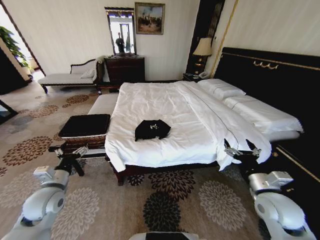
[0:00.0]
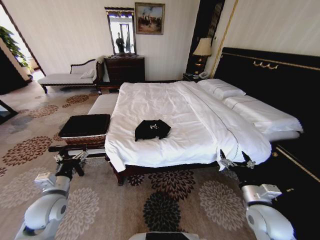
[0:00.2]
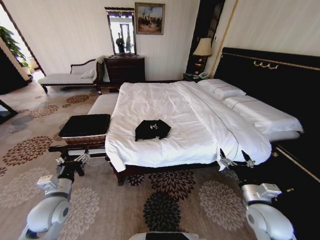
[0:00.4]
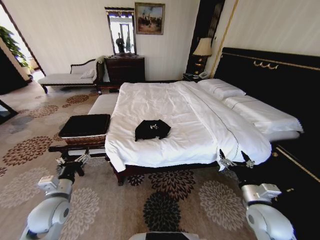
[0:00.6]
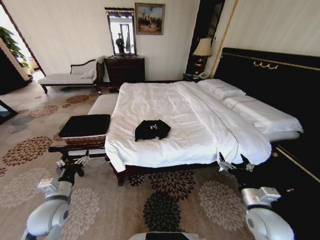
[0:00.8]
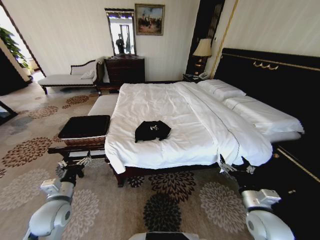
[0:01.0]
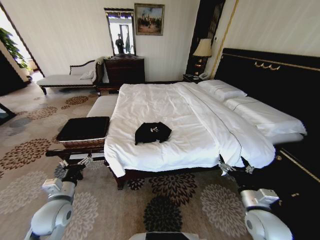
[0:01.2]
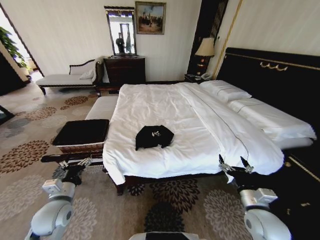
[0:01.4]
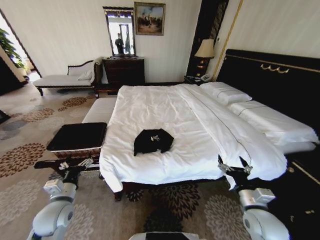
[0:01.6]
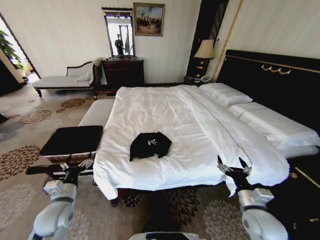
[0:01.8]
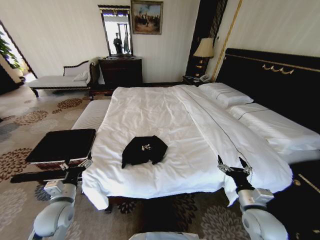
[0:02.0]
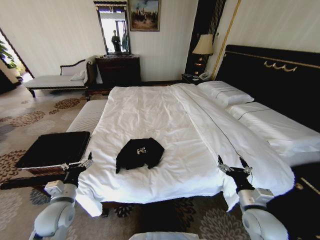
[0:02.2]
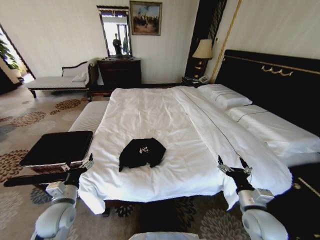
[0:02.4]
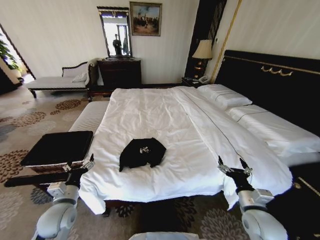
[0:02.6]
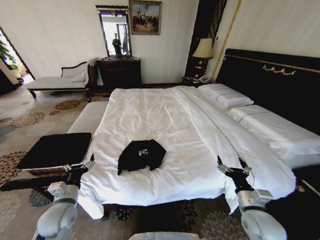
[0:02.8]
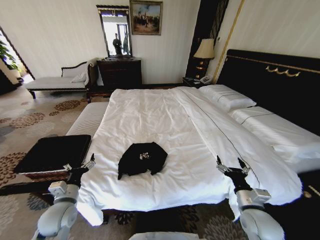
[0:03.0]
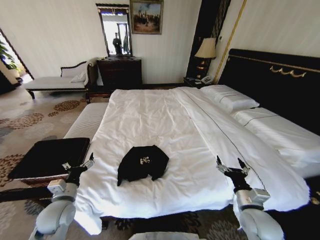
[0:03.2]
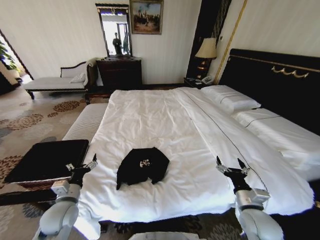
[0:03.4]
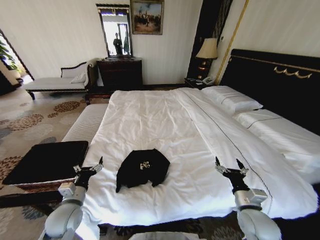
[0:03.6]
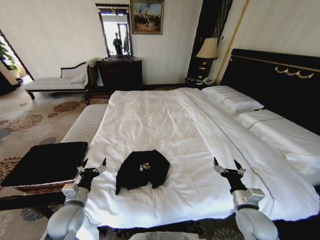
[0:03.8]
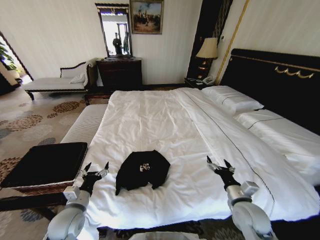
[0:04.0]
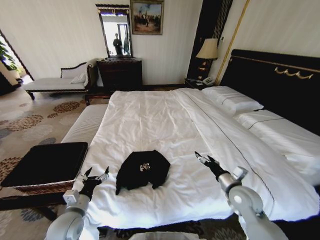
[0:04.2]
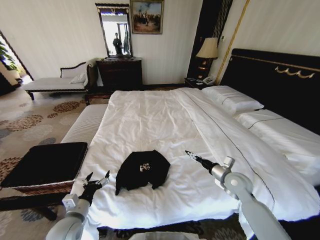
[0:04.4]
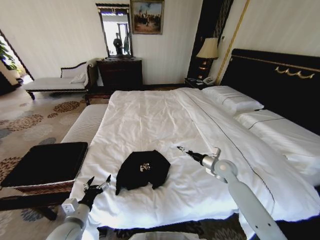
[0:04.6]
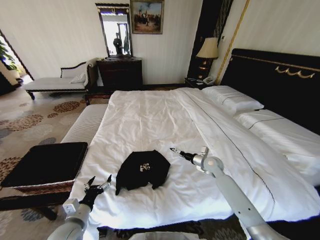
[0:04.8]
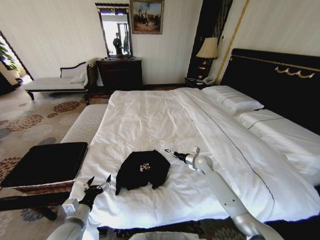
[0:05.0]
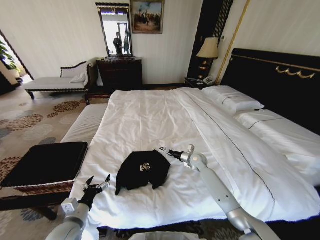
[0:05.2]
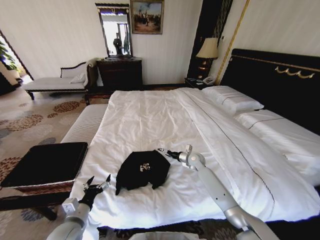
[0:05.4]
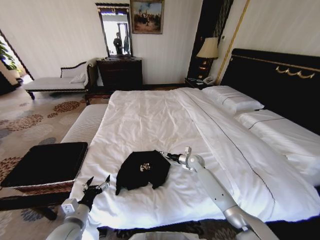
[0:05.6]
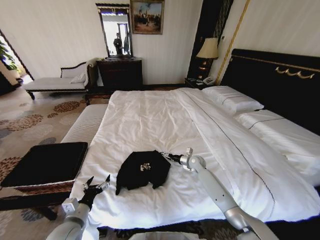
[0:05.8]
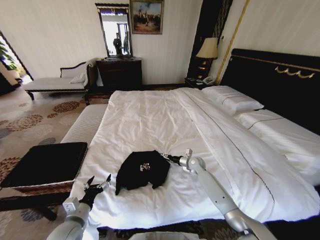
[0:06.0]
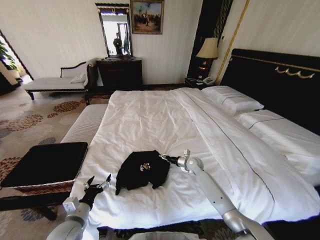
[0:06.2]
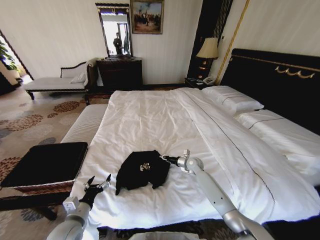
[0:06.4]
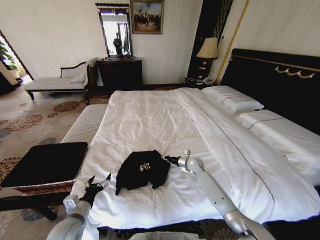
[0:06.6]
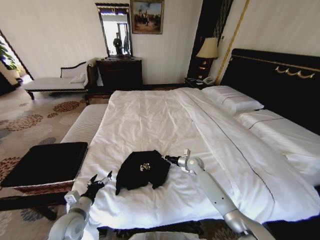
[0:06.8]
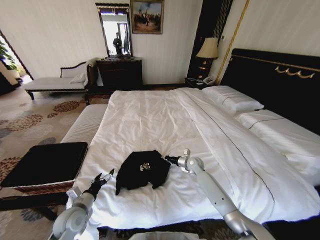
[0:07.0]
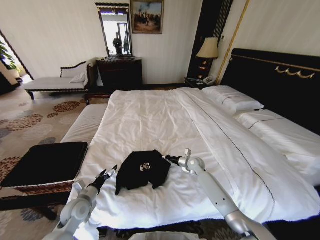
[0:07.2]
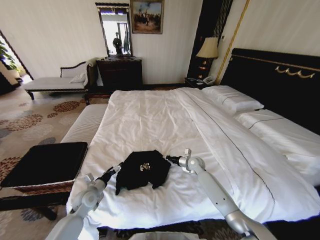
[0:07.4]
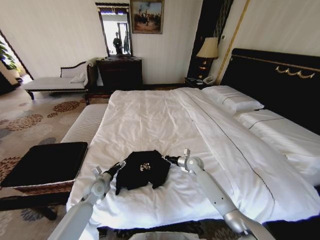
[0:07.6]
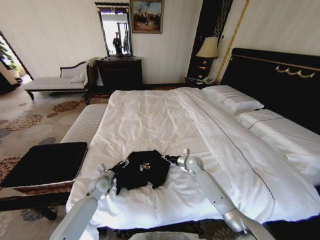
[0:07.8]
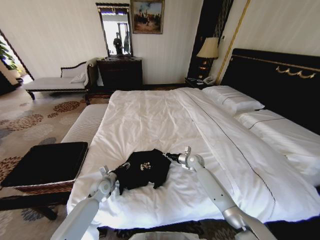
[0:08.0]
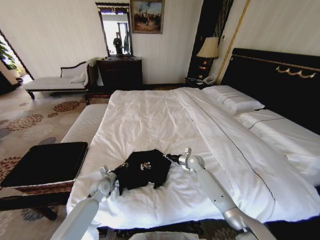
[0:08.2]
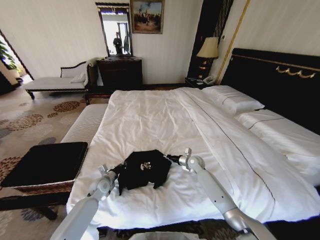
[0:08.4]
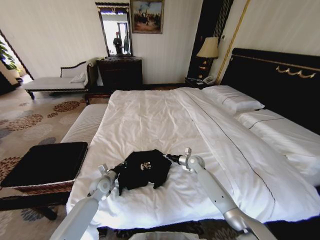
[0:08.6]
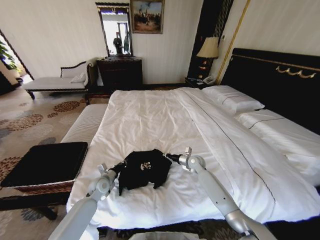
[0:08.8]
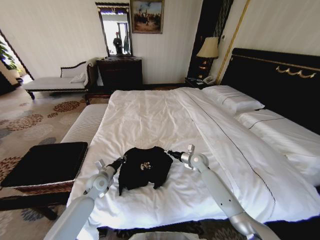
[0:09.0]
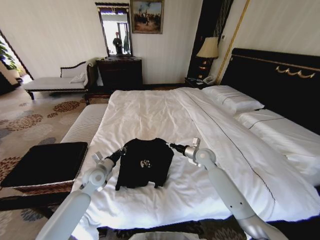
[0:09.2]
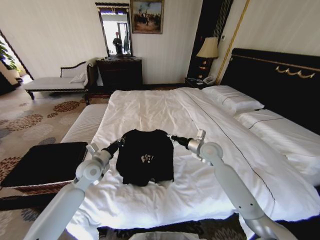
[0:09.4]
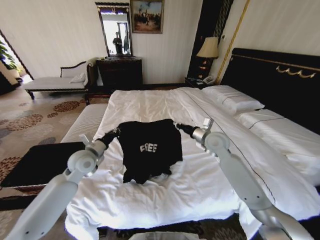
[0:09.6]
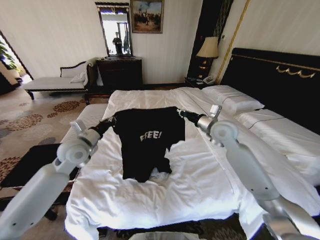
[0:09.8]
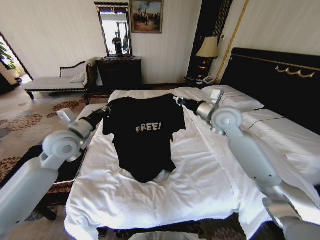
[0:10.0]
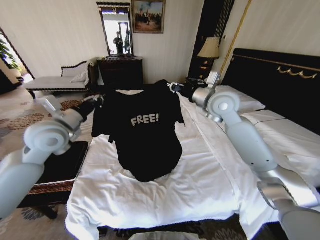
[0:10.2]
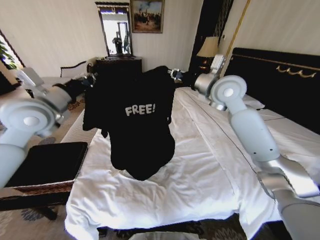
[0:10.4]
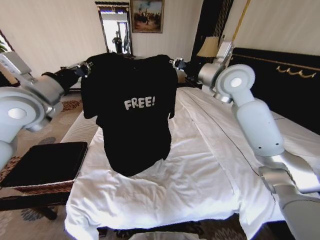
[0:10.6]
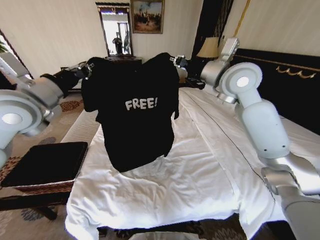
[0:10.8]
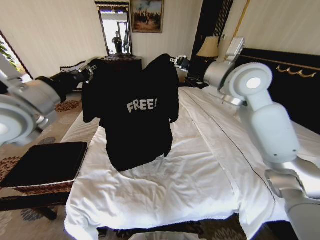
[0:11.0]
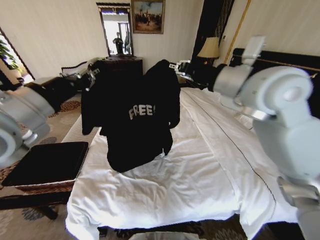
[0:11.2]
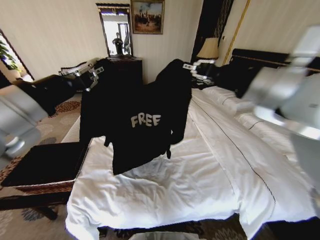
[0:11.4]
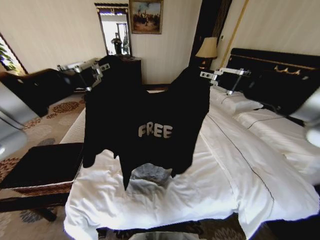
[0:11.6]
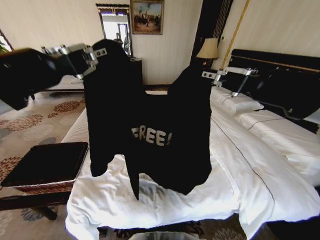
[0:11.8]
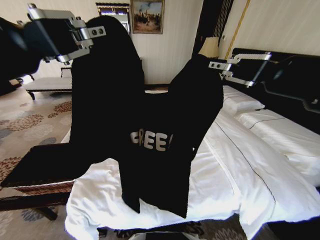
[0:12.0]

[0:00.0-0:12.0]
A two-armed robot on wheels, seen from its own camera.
Task of the whole recording: Fold the clothes on the bed and place them into the basket.
0:03.0 to 0:04.4: The left gripper shifts by roughly 5 cm; the right gripper travels forward by about 15 cm.
0:04.4 to 0:06.0: The right gripper goes about 20 cm forward, downward and to the left.
0:06.0 to 0:07.6: The right gripper closes its fingers. Meanwhile the left gripper moves forward, some 15 cm.
0:07.6 to 0:09.0: The left gripper closes its fingers.
0:09.0 to 0:10.4: The grippers both shift upward by some 40 cm.
0:10.4 to 0:12.0: The left gripper goes roughly 25 cm backward and upward; the right gripper moves backward, roughly 30 cm.

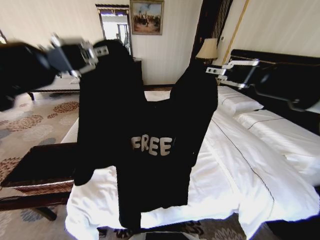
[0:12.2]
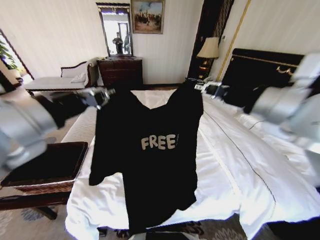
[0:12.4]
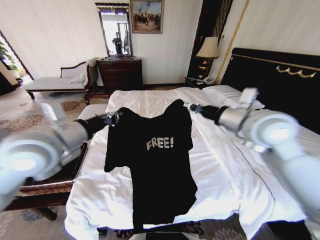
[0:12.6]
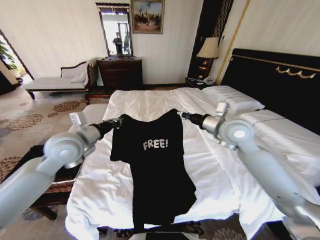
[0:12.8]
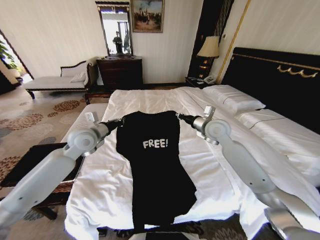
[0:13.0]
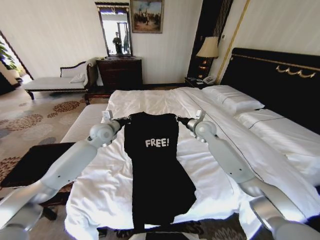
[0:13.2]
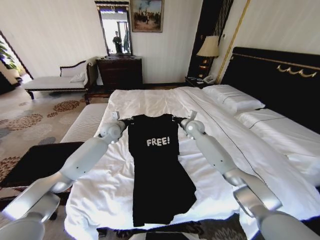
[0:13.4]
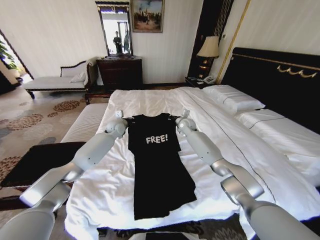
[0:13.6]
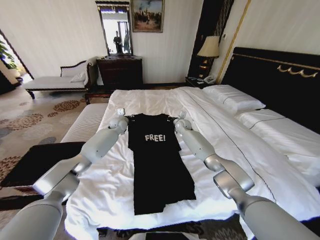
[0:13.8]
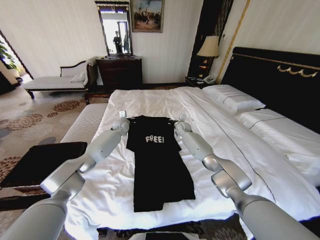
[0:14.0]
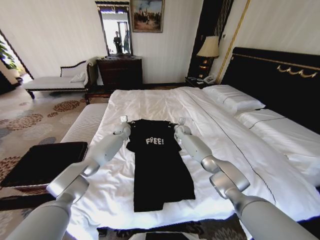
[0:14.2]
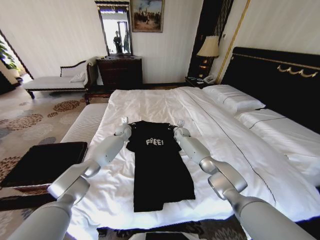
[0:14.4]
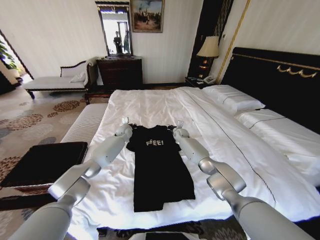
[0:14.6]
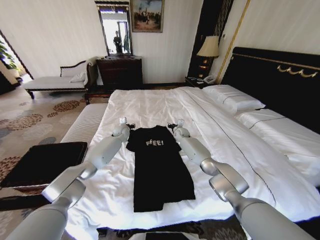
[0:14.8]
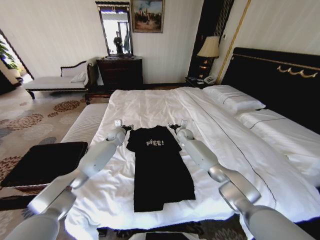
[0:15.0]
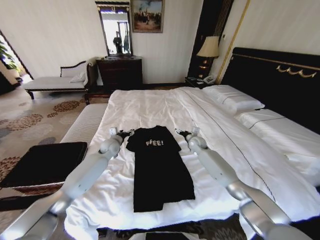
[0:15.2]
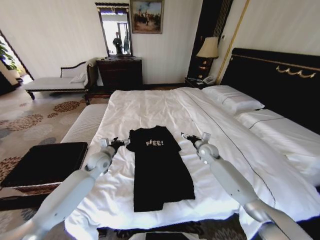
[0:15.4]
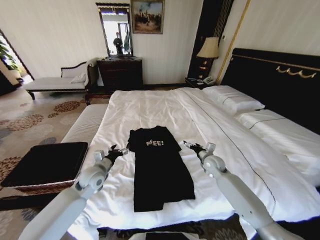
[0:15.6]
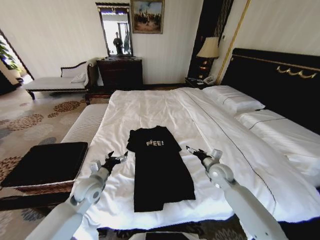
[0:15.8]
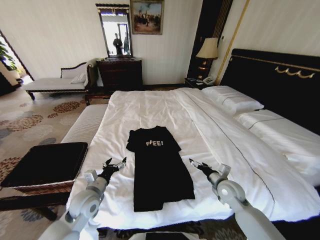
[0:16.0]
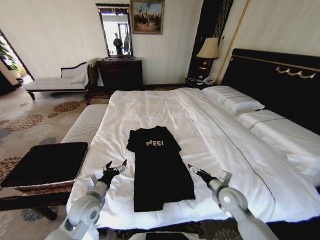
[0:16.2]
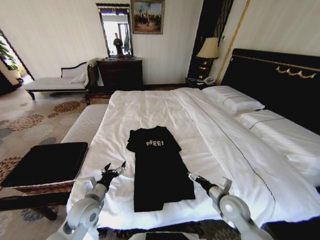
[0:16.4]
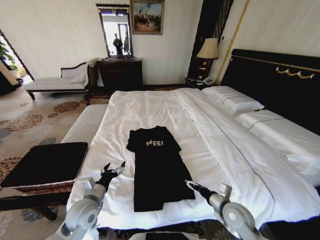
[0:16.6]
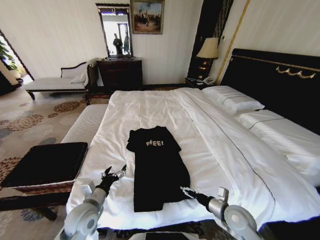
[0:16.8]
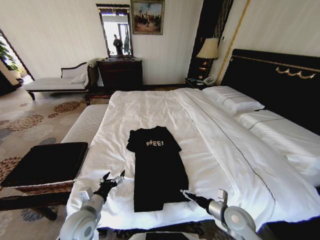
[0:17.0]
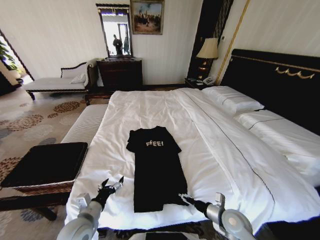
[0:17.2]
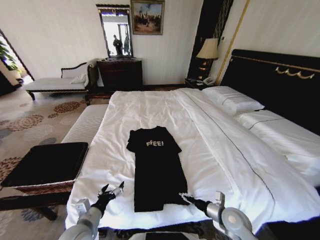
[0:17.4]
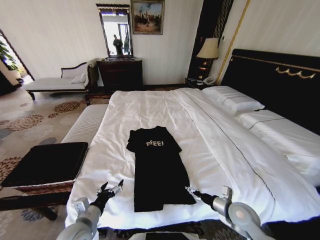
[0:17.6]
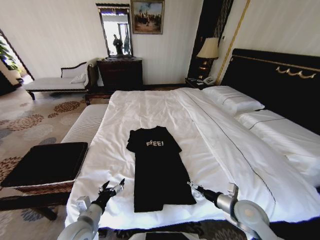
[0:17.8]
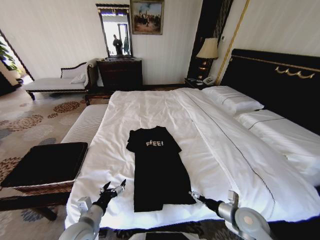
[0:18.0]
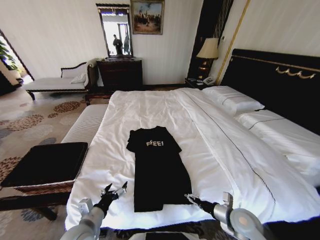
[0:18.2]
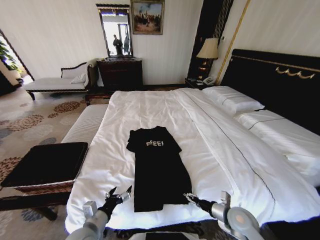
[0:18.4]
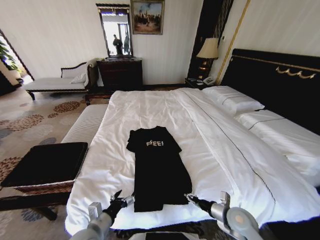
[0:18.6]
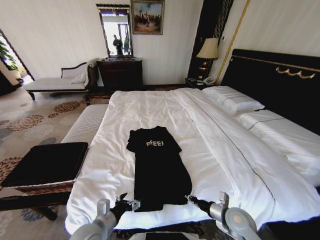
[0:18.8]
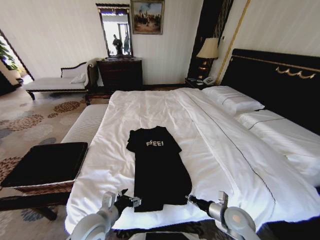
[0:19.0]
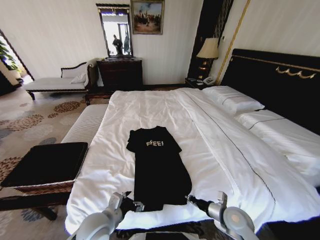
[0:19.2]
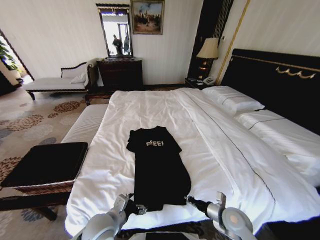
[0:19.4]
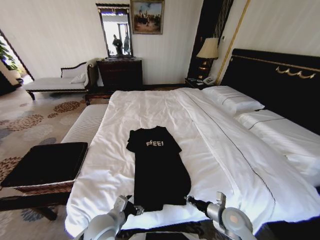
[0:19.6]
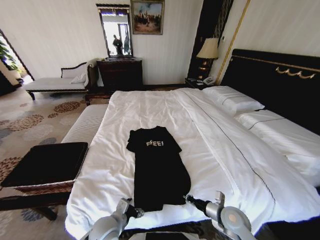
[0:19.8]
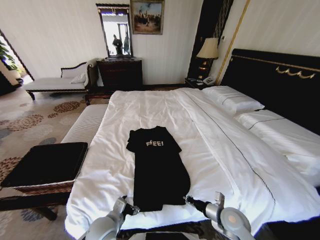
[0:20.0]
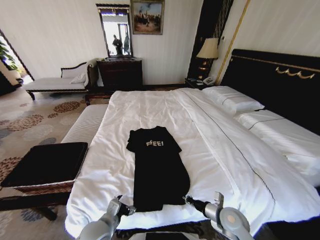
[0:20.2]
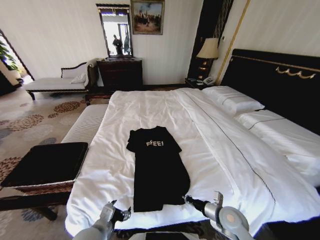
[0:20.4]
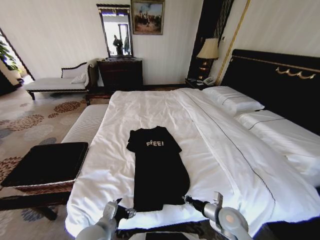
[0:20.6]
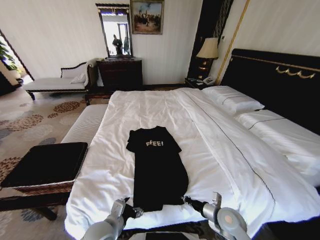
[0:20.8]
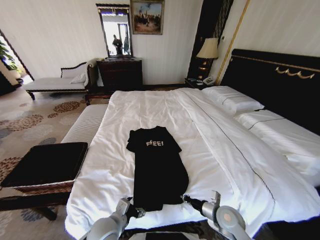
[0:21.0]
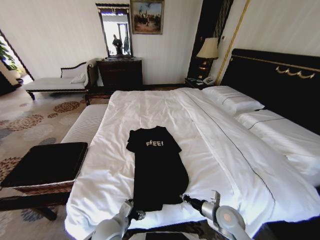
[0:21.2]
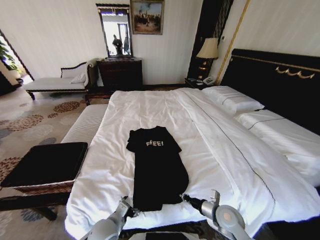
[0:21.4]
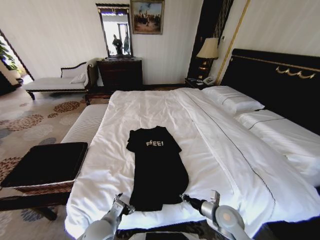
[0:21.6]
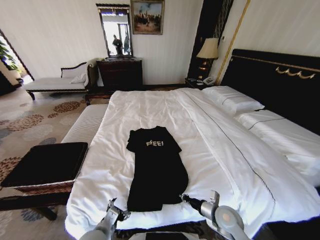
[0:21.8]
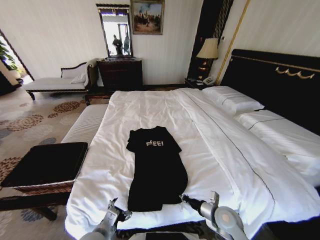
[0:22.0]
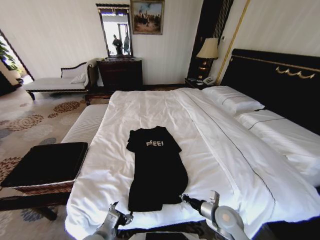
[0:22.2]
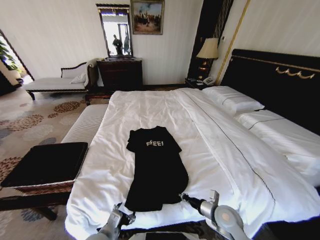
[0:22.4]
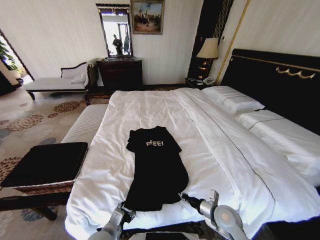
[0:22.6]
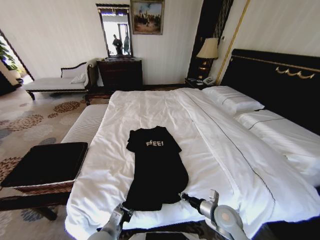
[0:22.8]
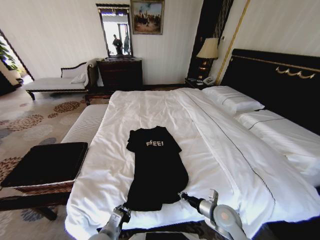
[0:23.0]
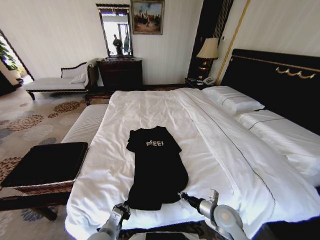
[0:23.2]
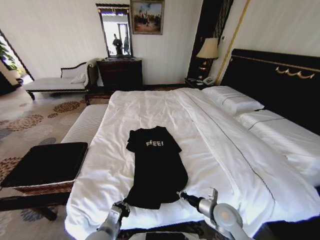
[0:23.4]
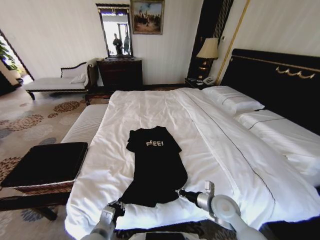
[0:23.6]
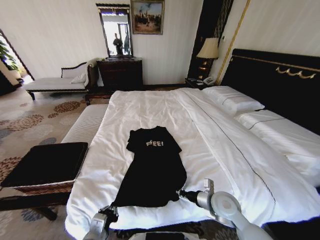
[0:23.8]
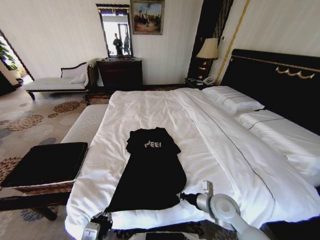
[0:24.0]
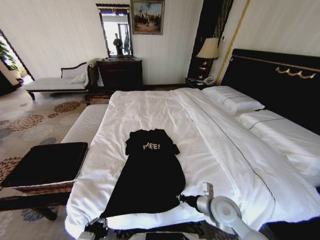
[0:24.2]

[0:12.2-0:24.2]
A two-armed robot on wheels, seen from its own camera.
Task of the whole recording: Fold the clothes on the bed and place them into the basket.
0:12.2 to 0:13.8: Both grippers travel together forward and downward, about 60 cm.
0:13.8 to 0:15.2: The right gripper is displaced backward, to the right and downward by approximately 15 cm, and opens its fingers. Meanwhile the left gripper travels backward and downward by about 15 cm, and opens its fingers.
0:15.2 to 0:16.6: Both grippers travel together backward, roughly 30 cm.
0:16.6 to 0:18.2: The left gripper travels backward by about 5 cm.
0:18.2 to 0:19.8: The left gripper moves to the right, roughly 10 cm; the right gripper closes its fingers.
0:19.8 to 0:22.6: The grippers stay close to where they were, moving slightly.
0:22.6 to 0:24.2: The left gripper heads backward and upward, covering some 10 cm, and closes, while the right gripper is displaced upward by approximately 5 cm.
